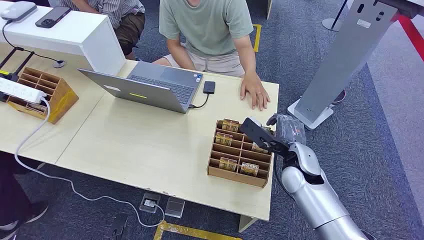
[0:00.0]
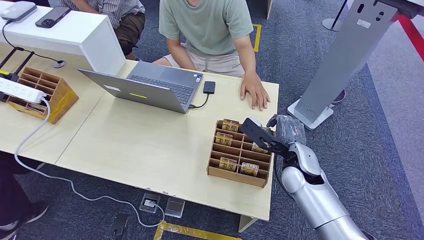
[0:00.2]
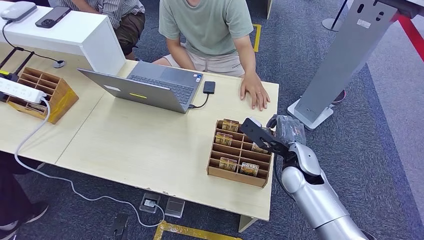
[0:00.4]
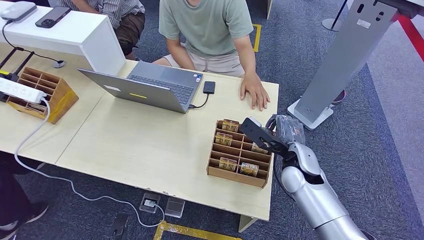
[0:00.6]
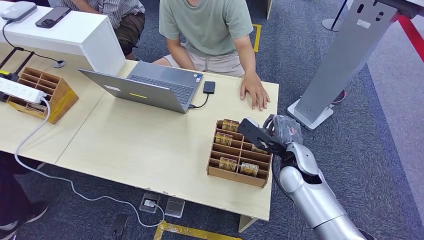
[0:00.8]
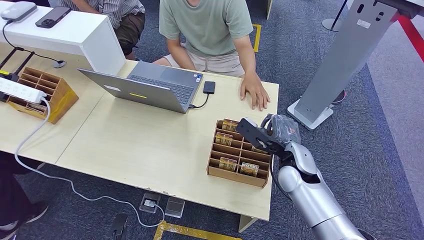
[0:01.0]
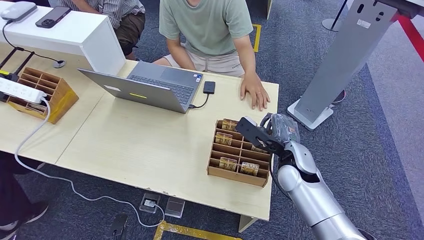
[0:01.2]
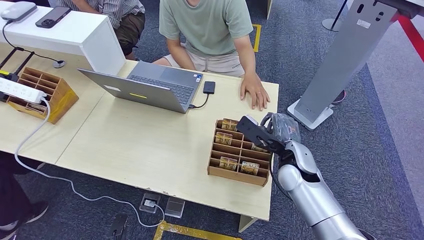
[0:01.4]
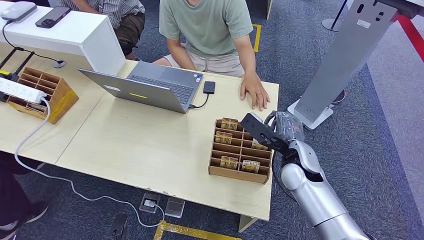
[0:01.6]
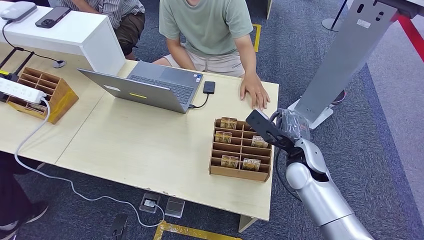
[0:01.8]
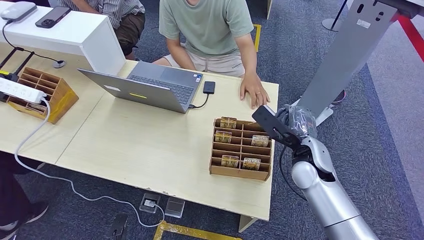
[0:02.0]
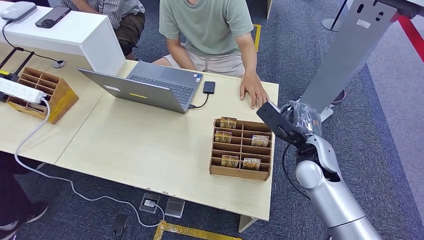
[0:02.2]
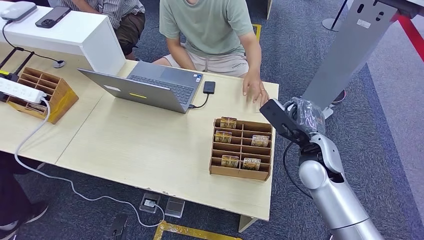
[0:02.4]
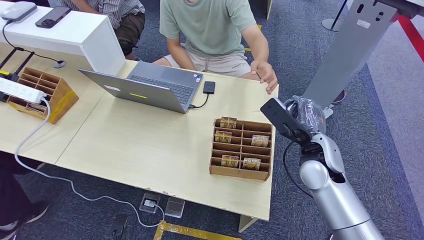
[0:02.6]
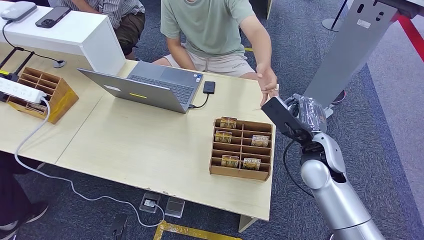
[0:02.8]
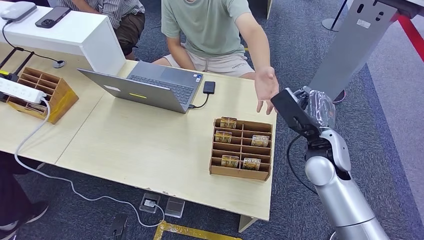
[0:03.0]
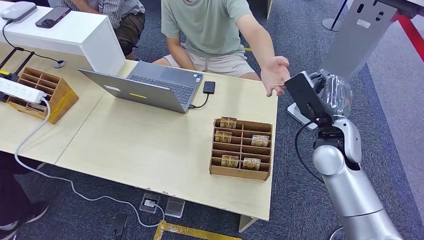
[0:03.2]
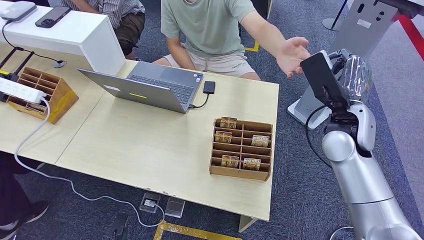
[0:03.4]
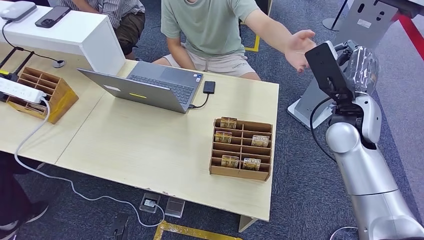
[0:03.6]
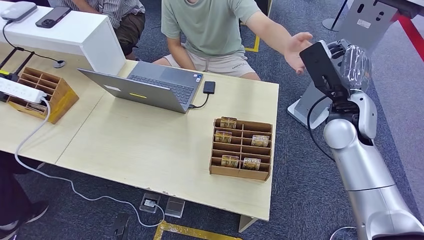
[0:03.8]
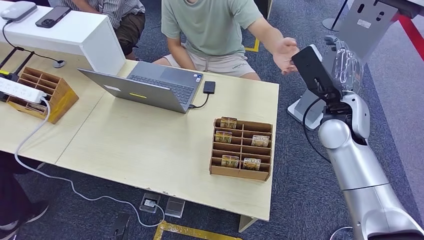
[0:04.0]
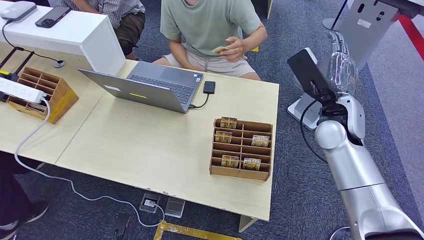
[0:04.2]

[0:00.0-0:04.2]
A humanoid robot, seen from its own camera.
Step, 0:00.0 to 0:02.2: Pick up the room card from the card holder.
Step, 0:03.0 to 0:04.2: Hand the room card to the target.
0:01.4 to 0:02.8: The right hand heads upward, covering approximately 5 cm.
0:02.8 to 0:04.2: The right hand heads upward and forward, covering about 10 cm.
